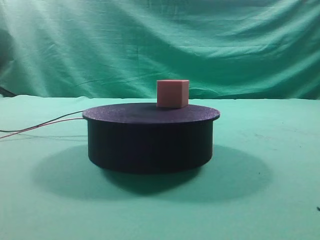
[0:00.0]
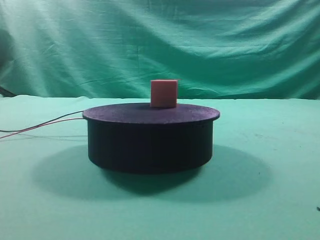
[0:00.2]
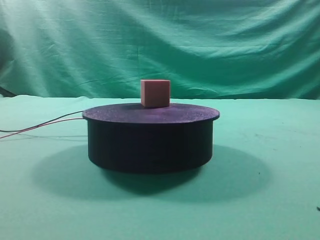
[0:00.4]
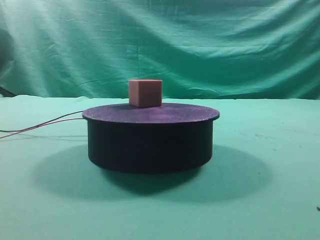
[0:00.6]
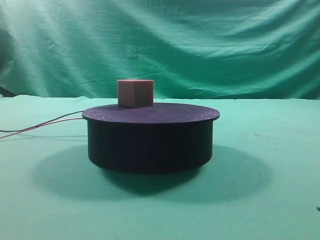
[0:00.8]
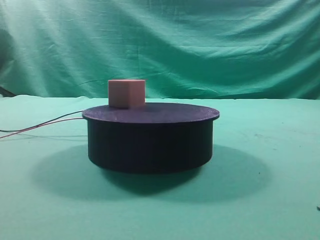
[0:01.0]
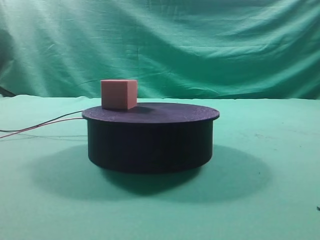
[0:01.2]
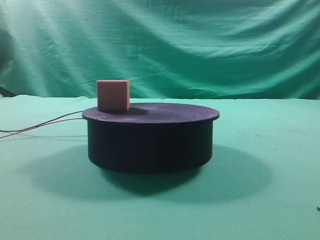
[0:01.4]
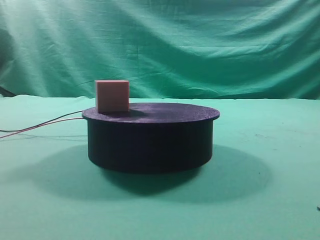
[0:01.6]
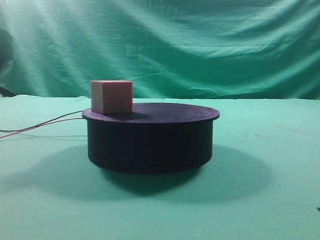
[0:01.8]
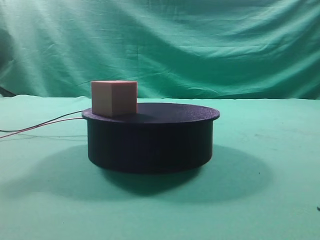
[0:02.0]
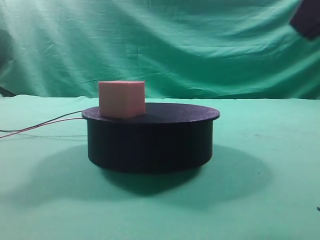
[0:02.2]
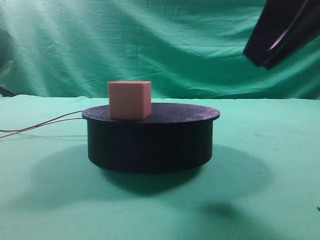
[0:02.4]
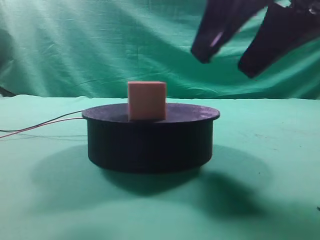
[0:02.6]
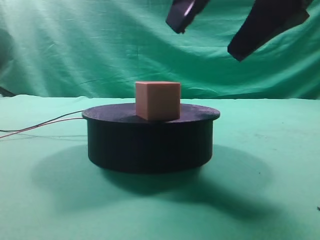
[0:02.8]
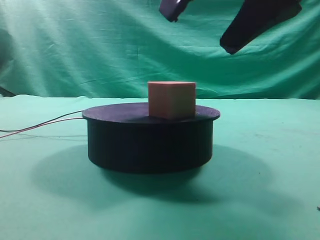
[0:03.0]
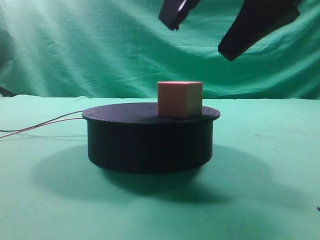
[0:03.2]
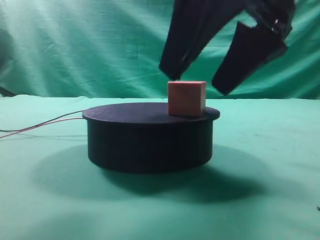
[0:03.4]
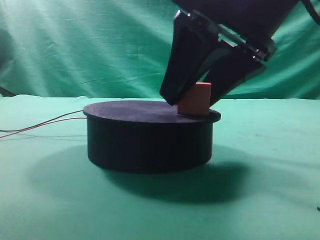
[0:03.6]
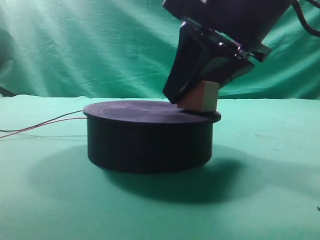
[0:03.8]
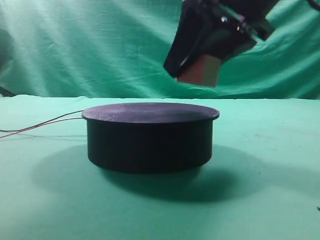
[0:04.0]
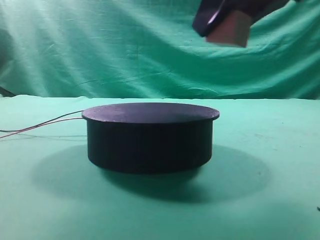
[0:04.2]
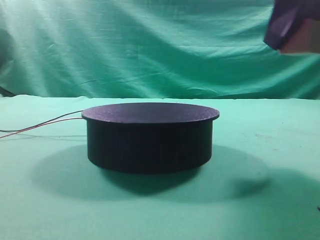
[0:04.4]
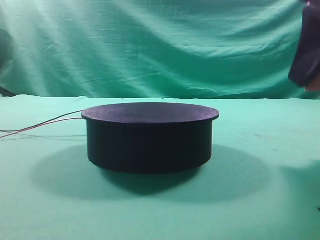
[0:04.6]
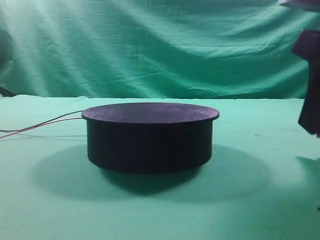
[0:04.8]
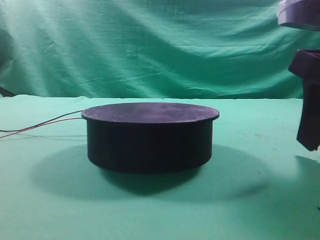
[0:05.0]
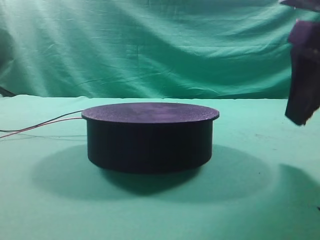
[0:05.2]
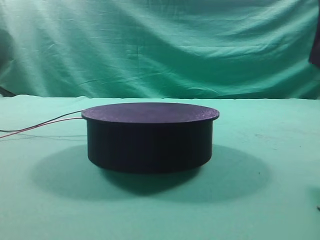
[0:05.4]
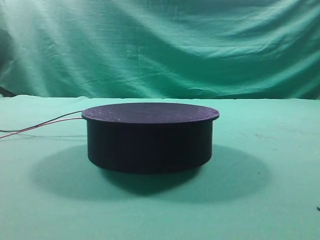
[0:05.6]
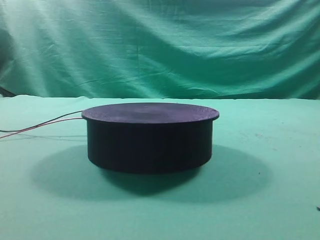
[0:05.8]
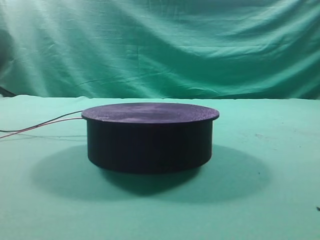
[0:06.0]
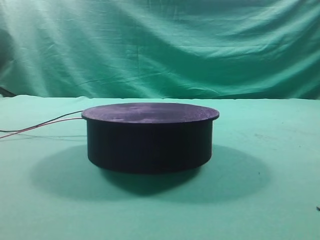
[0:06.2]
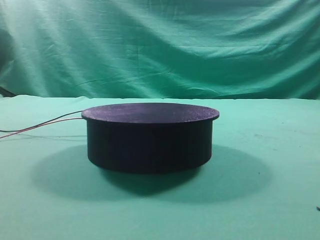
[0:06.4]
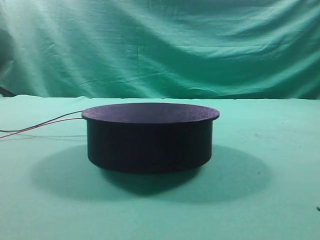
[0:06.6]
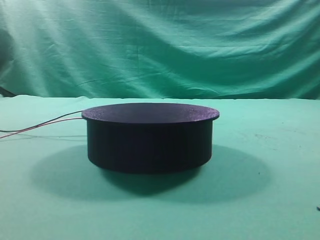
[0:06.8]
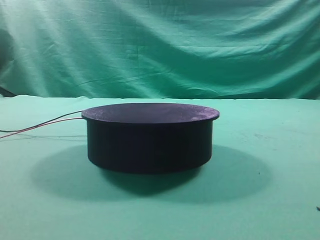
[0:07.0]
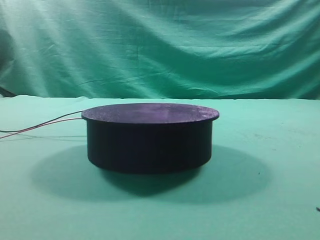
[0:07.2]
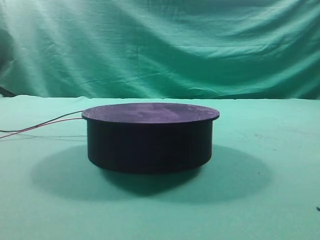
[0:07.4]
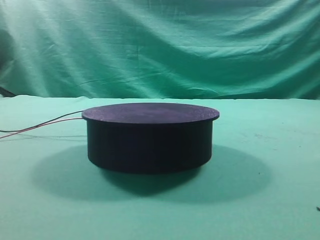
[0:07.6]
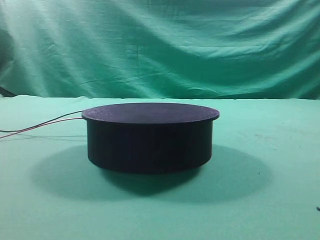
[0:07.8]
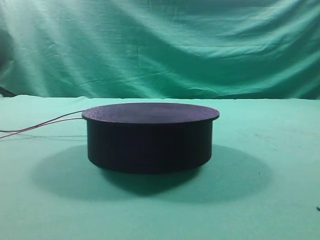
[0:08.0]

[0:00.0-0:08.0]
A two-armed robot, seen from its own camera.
Task of the whole recording: grasp the rotating cube-shaped block on the turntable and place it on the table.
Step, 0:00.0 to 0:04.0: Grasp the rotating cube-shaped block on the turntable.
Step, 0:04.2 to 0:05.2: Place the cube on the desk.
